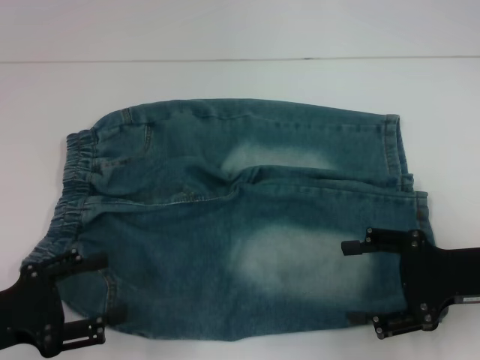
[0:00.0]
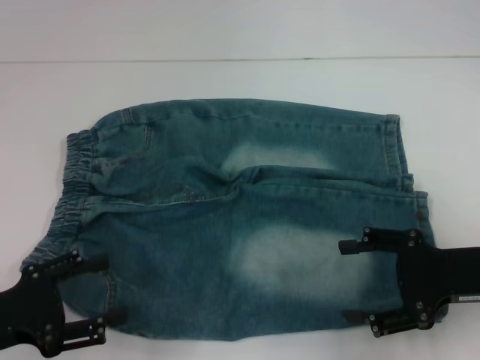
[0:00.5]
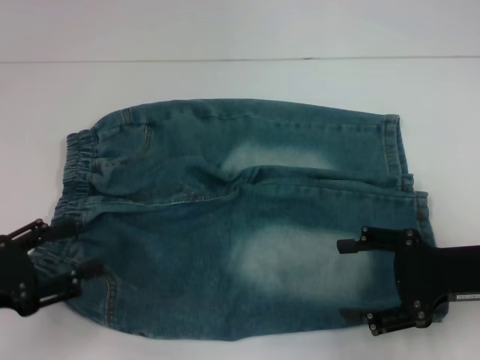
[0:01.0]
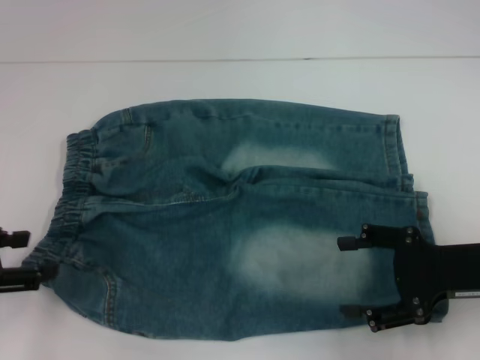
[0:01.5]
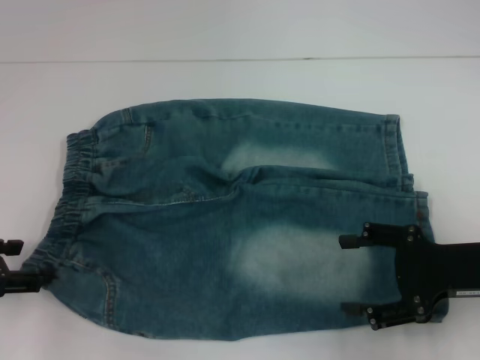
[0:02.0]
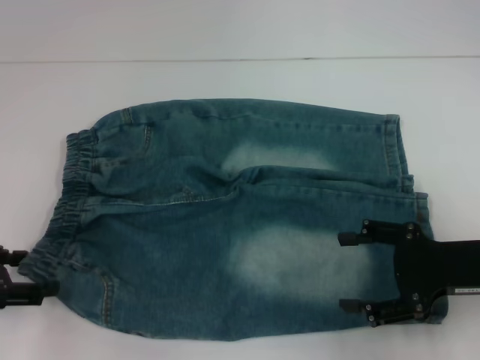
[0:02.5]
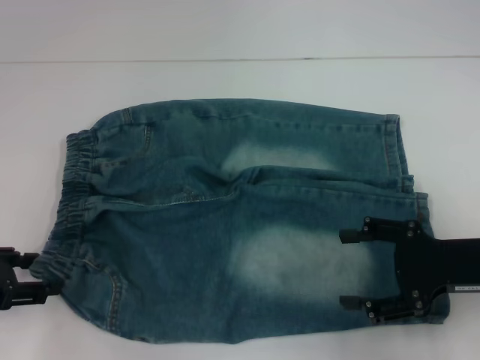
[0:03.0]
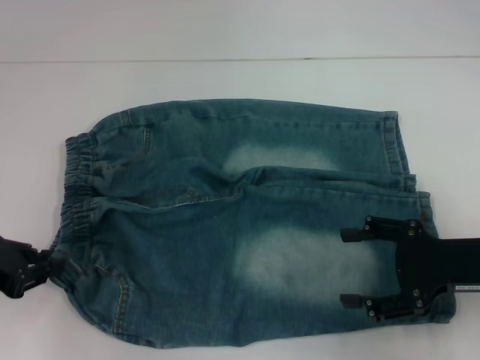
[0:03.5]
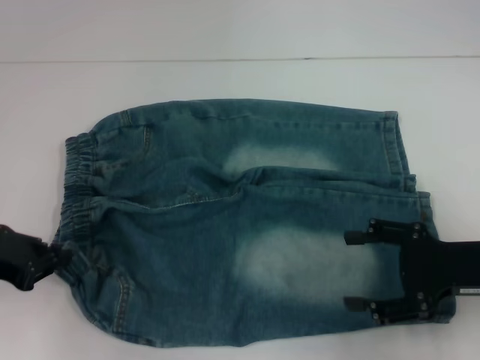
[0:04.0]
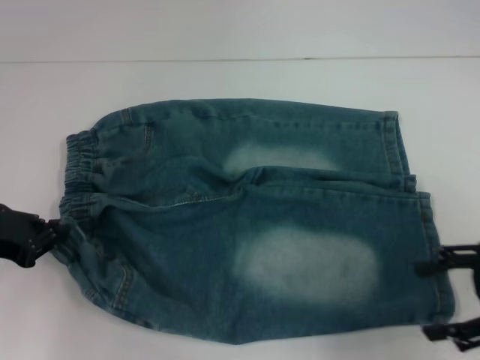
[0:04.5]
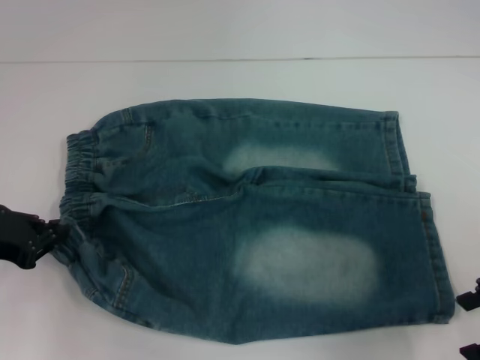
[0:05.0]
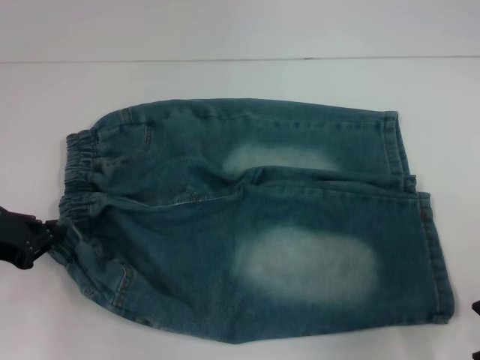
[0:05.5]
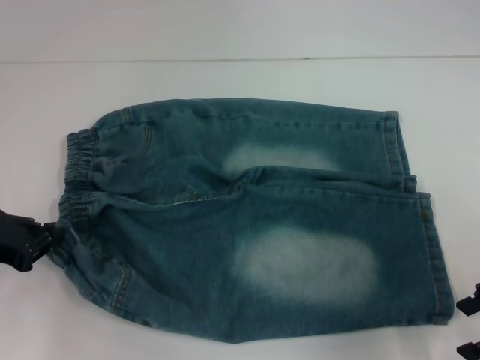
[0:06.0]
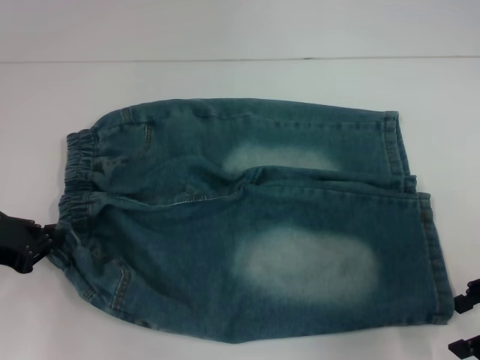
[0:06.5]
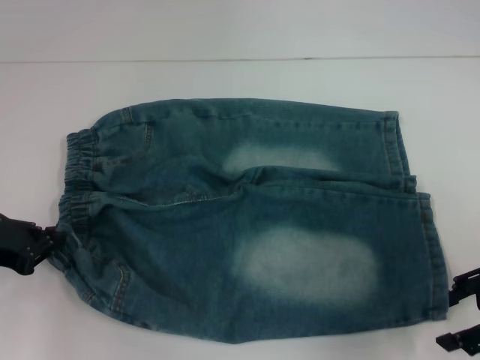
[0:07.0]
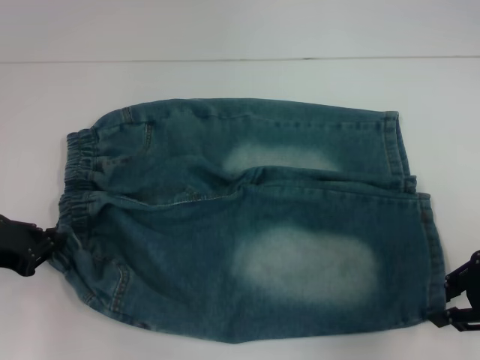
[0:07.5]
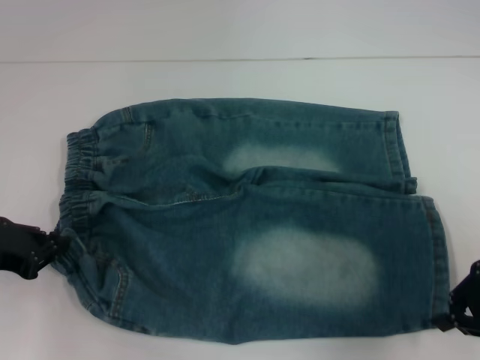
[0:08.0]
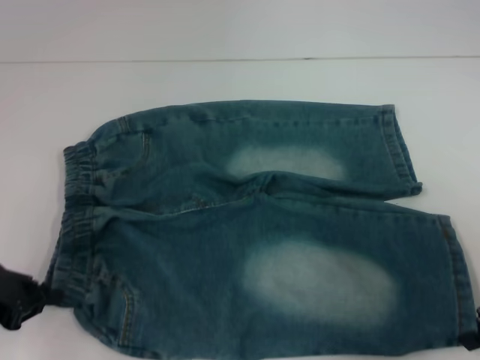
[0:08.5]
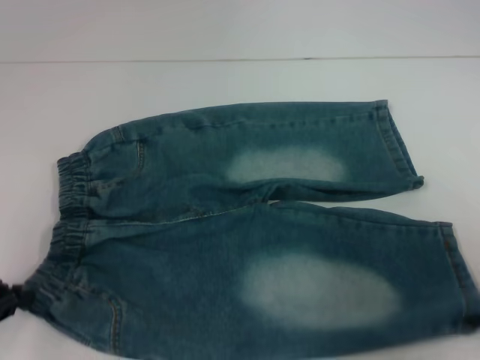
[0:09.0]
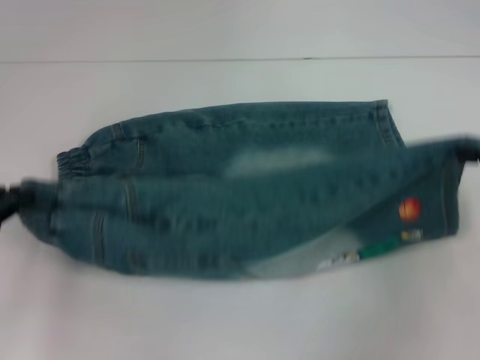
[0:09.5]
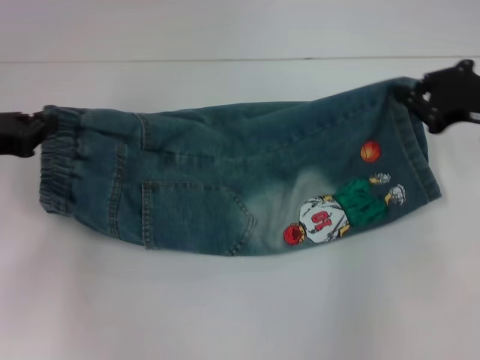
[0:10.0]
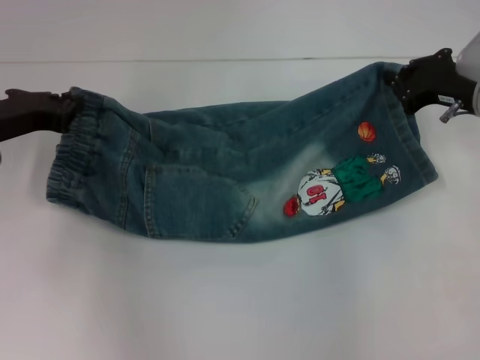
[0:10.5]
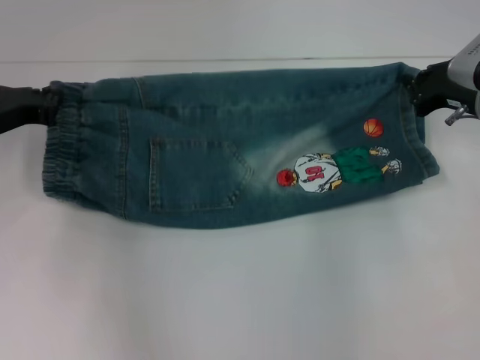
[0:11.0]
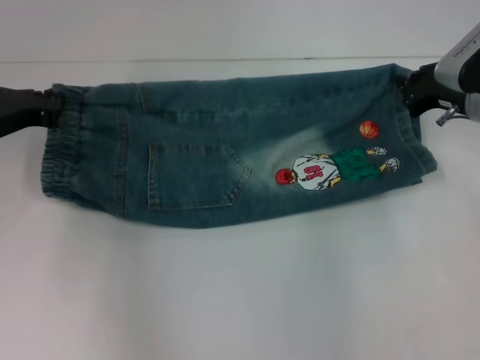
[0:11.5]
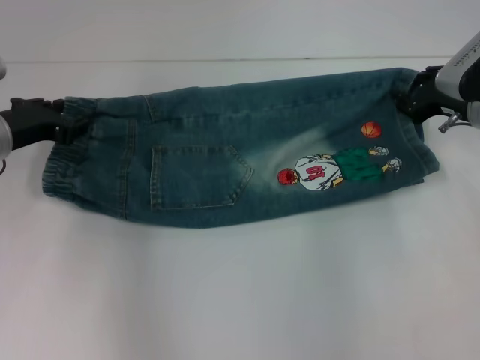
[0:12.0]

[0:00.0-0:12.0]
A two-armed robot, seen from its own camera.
Step, 0:00.0 to 0:03.0: Hold the lower left waistband with your left hand.
Step, 0:03.5 to 0:07.5: Grab the lower right pant leg with your right hand.
0:00.0 to 0:02.0: The left gripper is displaced forward by approximately 5 cm.
0:02.0 to 0:04.0: The left gripper closes.
0:04.0 to 0:06.0: The right gripper shifts by some 5 cm.
0:06.0 to 0:08.0: The right gripper closes.
0:08.0 to 0:10.0: The right gripper moves forward, some 10 cm, while the left gripper travels forward by about 5 cm.
0:10.0 to 0:12.0: The right gripper ends up roughly 5 cm from where it was. The left gripper shifts roughly 5 cm forward.

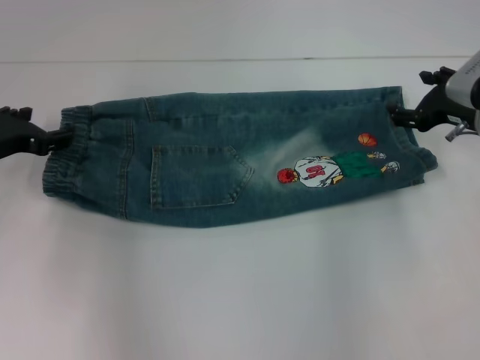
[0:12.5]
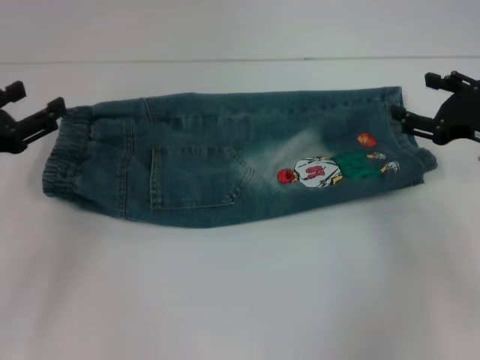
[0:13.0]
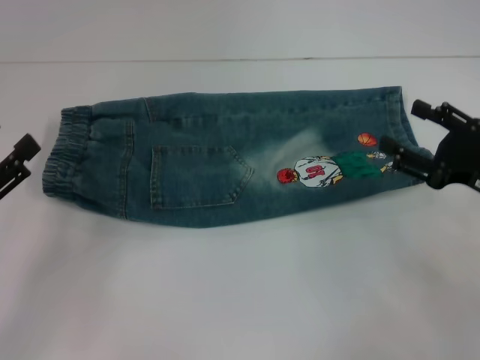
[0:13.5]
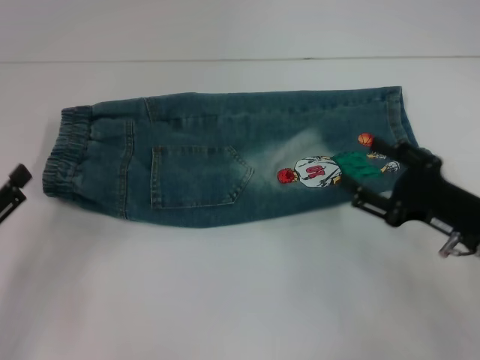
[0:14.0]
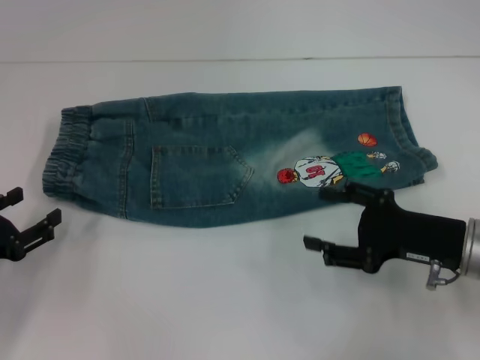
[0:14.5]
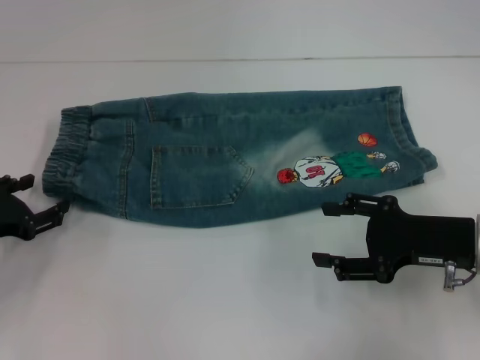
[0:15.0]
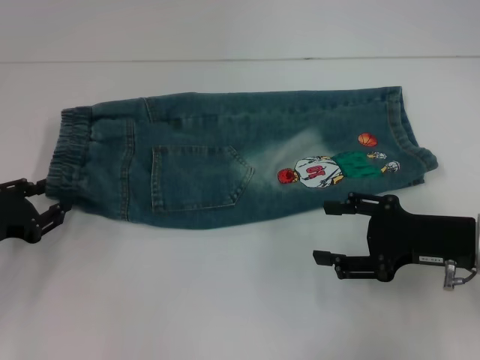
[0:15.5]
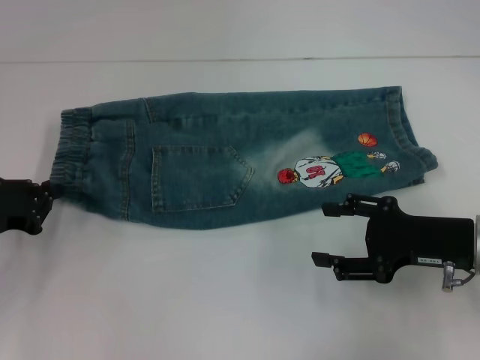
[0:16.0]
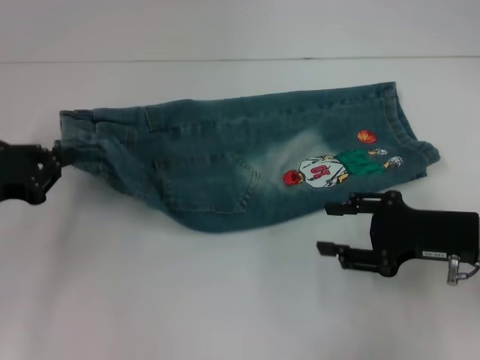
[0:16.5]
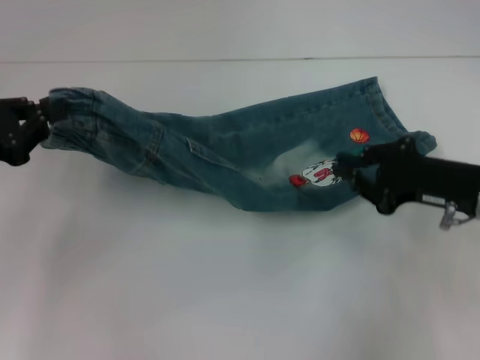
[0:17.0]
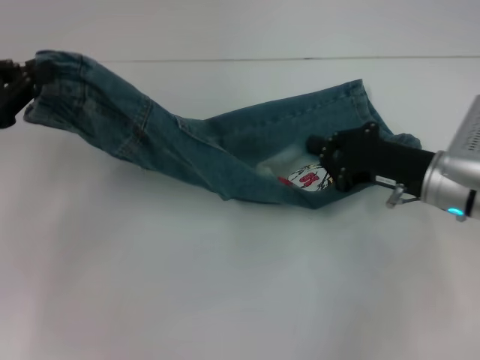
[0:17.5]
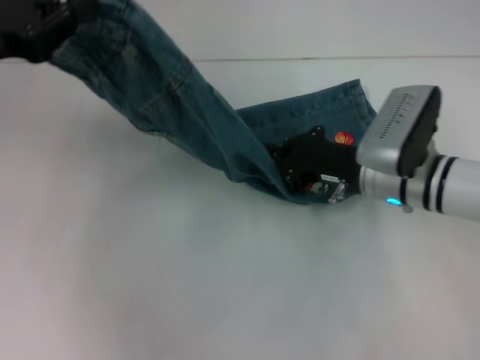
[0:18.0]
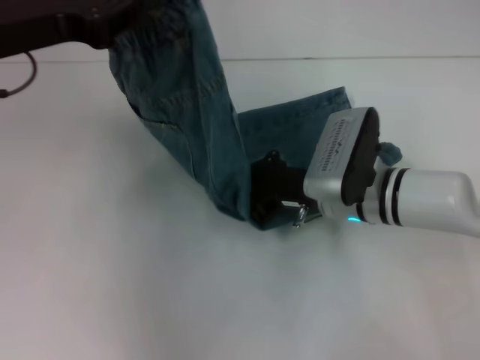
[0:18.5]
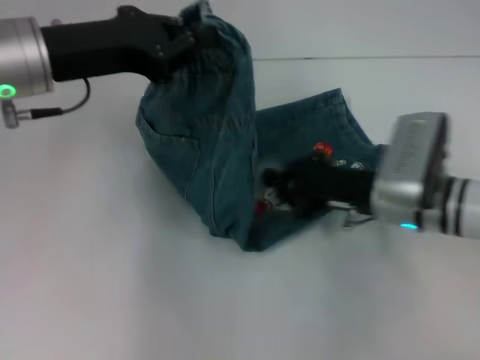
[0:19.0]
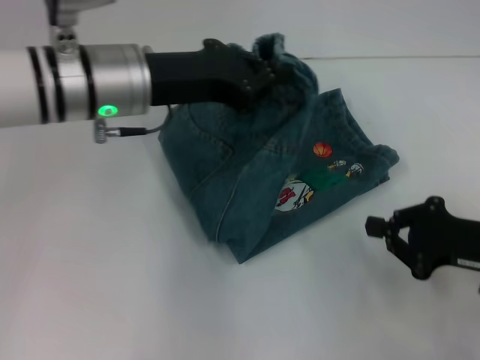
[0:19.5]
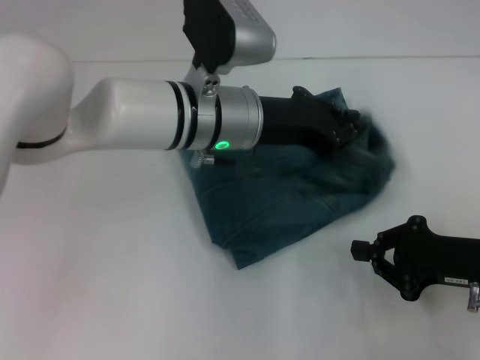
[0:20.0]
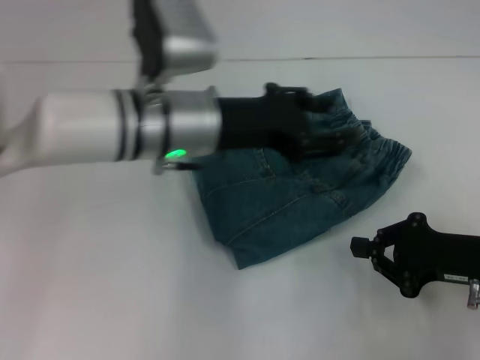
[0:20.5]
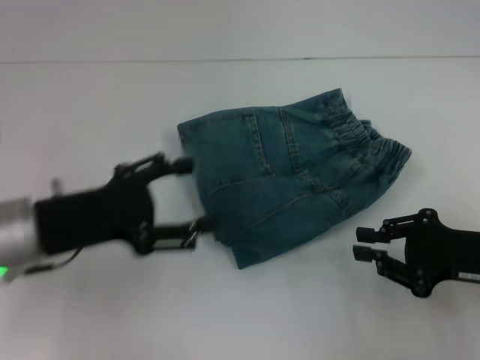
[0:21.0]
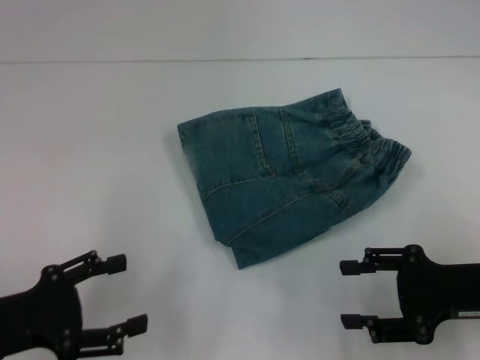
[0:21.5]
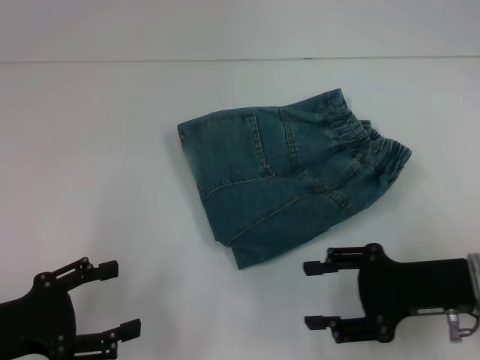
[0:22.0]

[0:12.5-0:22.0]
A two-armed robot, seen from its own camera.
Step, 0:12.5 to 0:15.5: Hold the waistband with your left hand.
Step, 0:16.0 to 0:18.5: Press the middle of the pants with your right hand.
Step, 0:19.0 to 0:20.0: Fold to the right with your left hand.
0:12.5 to 0:14.5: The left gripper is displaced backward and downward by about 15 cm. Meanwhile the right gripper moves backward, some 15 cm.
0:14.5 to 0:16.5: The left gripper travels upward and forward by about 10 cm, and closes its fingers.
0:16.5 to 0:18.0: The right gripper shifts some 10 cm to the left and forward, and closes. Meanwhile the left gripper is displaced upward by some 10 cm.
0:18.0 to 0:20.0: The left gripper moves to the right, about 25 cm, while the right gripper heads to the right and backward, covering approximately 15 cm.
0:20.0 to 0:22.0: The left gripper heads to the left and backward, covering about 30 cm, and opens. The right gripper opens its fingers.

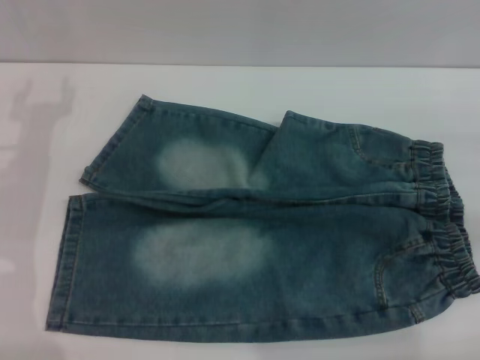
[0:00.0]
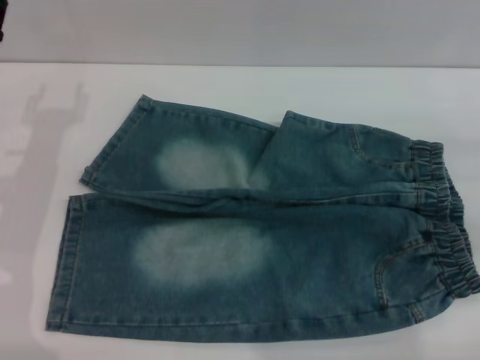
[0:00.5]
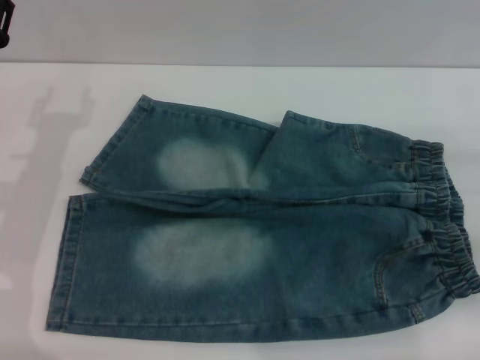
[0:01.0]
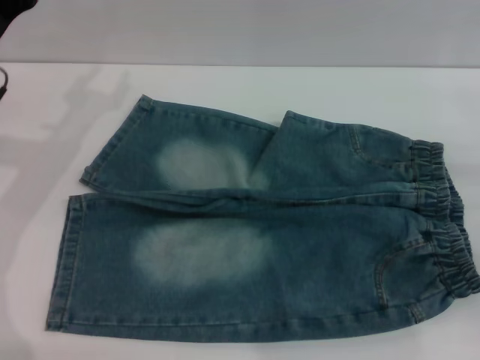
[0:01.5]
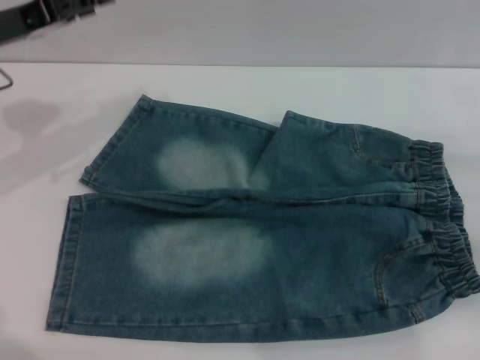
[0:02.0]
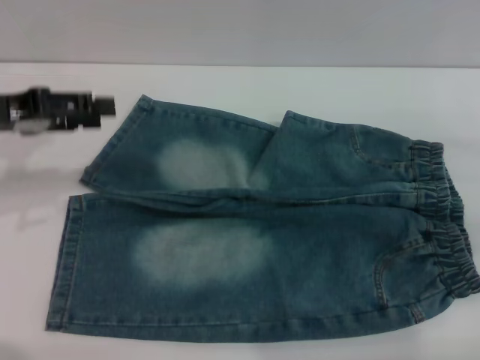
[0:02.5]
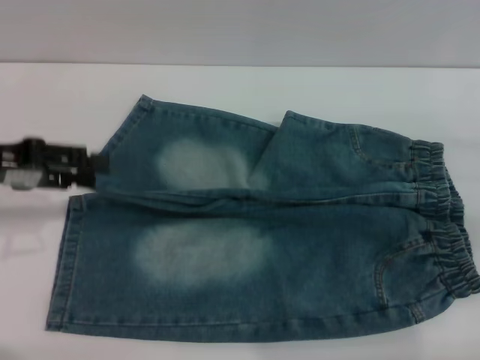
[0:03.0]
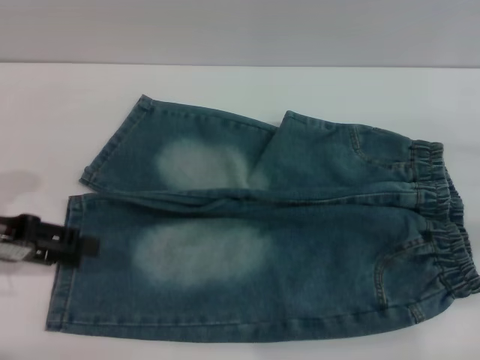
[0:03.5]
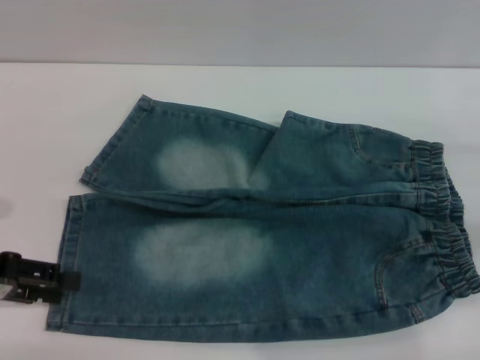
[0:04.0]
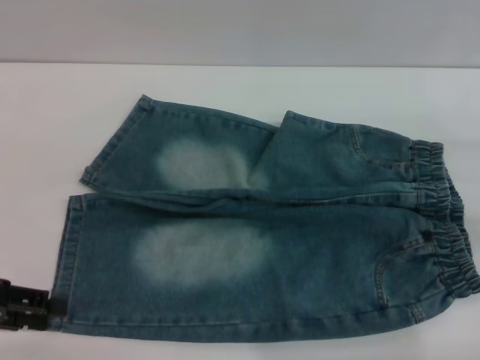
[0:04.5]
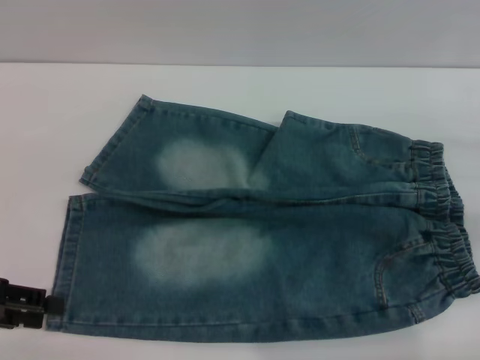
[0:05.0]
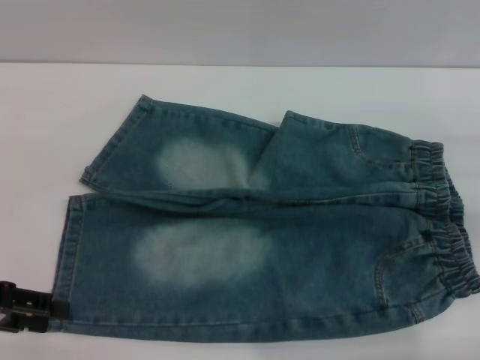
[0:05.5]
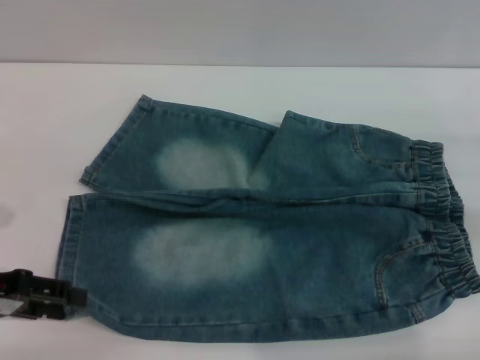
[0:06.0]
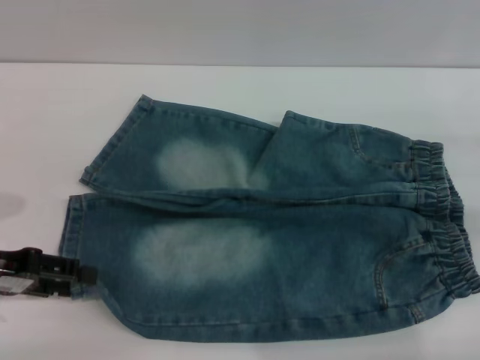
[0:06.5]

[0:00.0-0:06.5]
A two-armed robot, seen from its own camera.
0:00.0 to 0:02.0: The left gripper heads upward, covering roughly 5 cm.
0:02.0 to 0:04.5: The left gripper goes roughly 20 cm backward, downward and to the left.
0:04.5 to 0:06.5: The grippers stay close to where they were, moving slightly.
